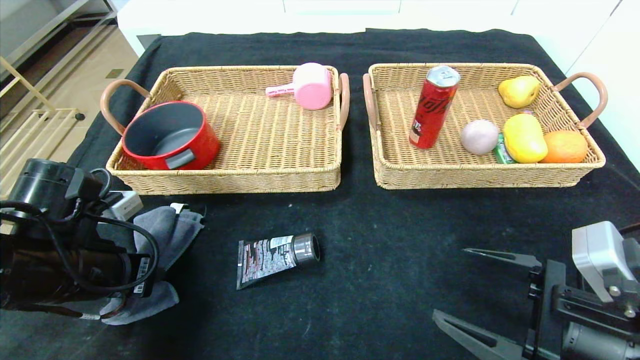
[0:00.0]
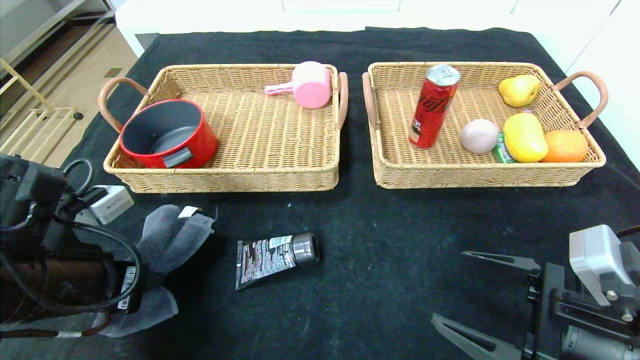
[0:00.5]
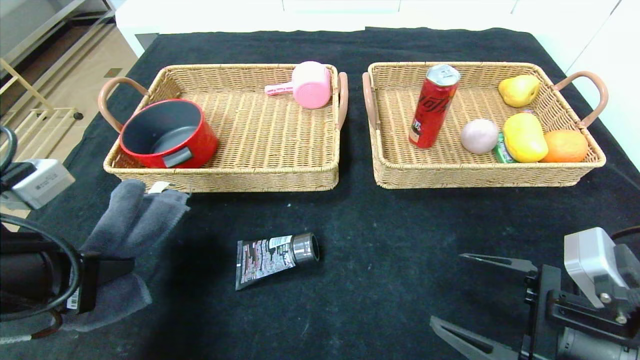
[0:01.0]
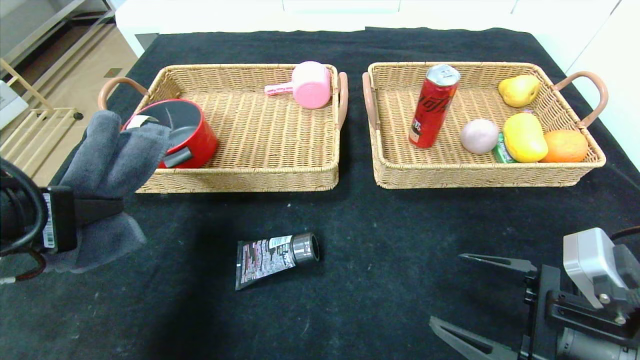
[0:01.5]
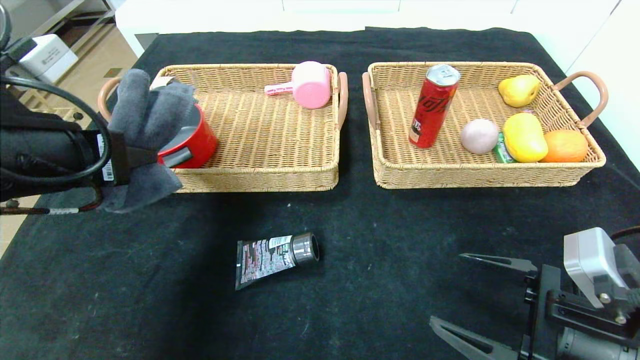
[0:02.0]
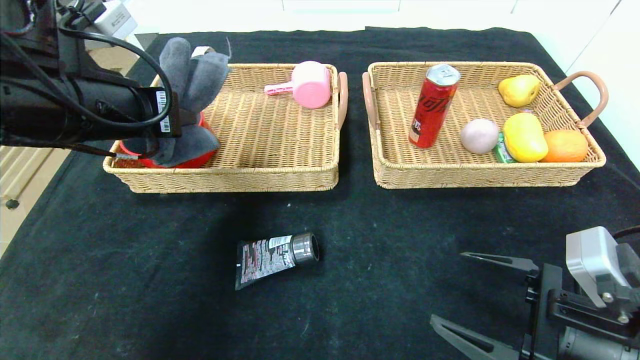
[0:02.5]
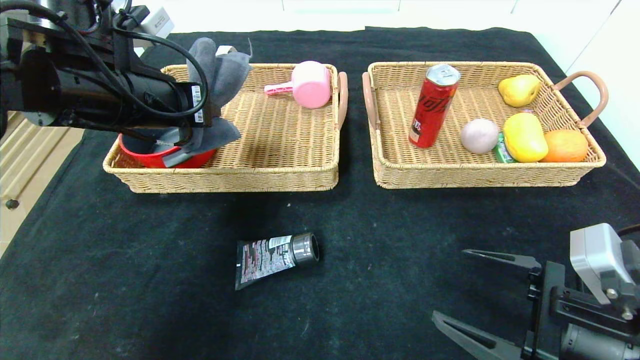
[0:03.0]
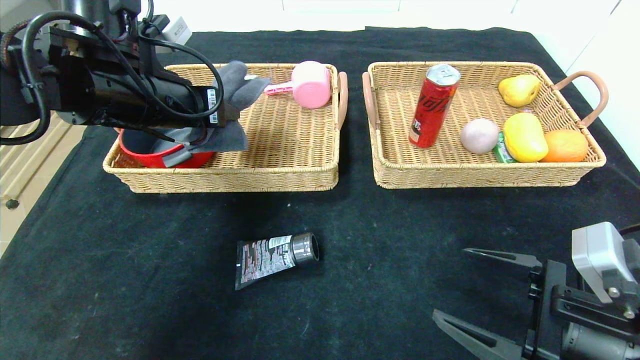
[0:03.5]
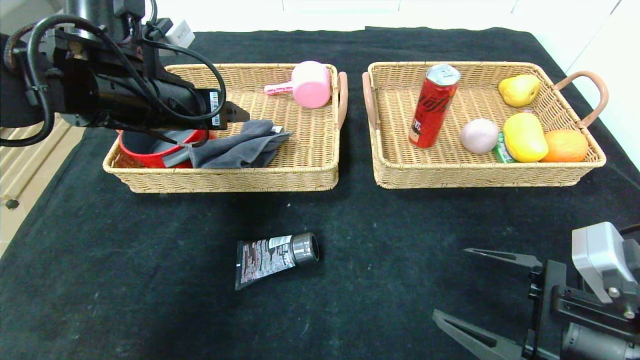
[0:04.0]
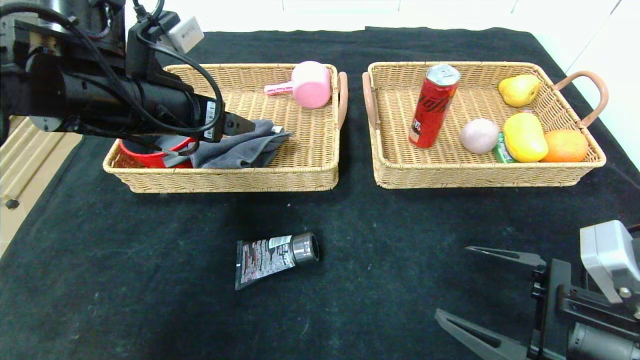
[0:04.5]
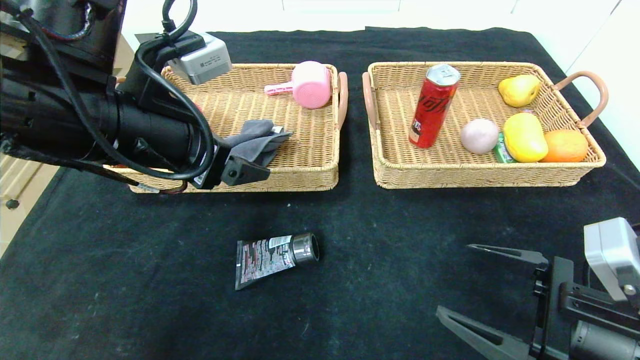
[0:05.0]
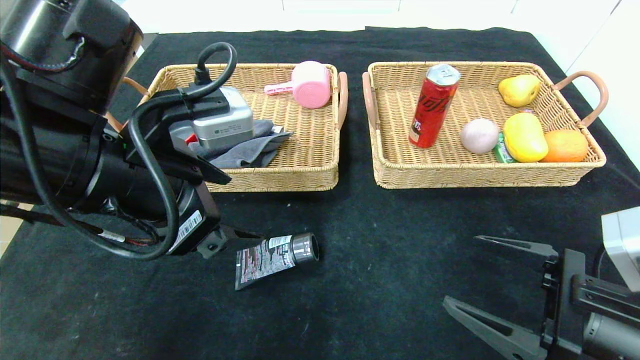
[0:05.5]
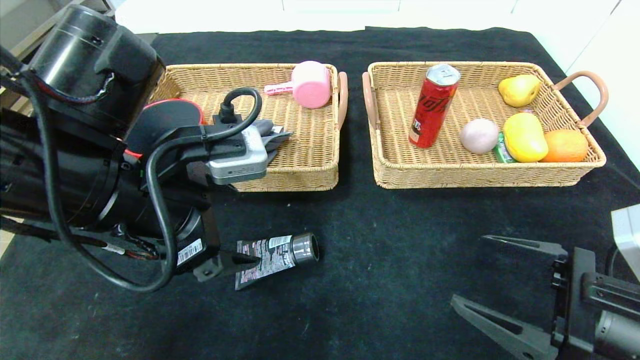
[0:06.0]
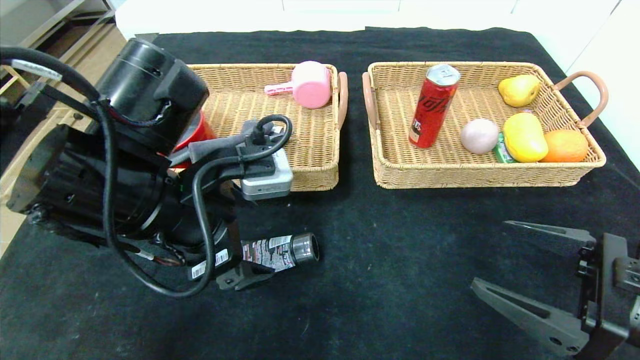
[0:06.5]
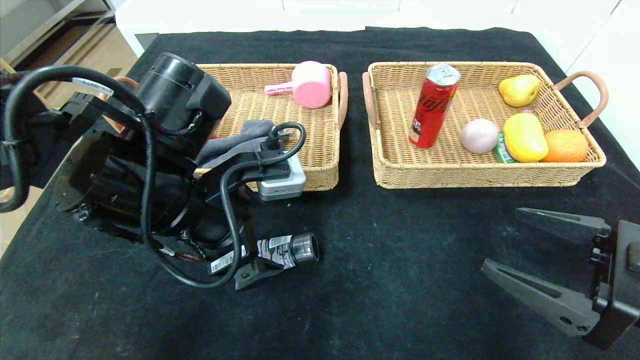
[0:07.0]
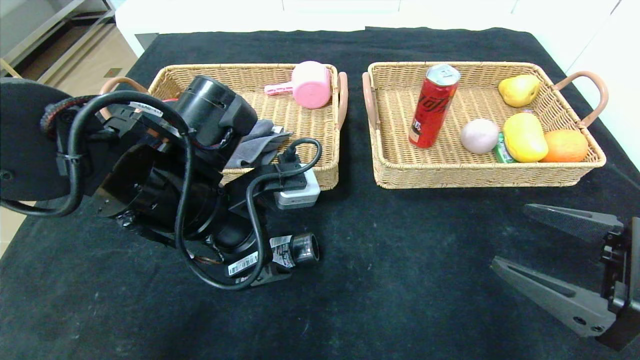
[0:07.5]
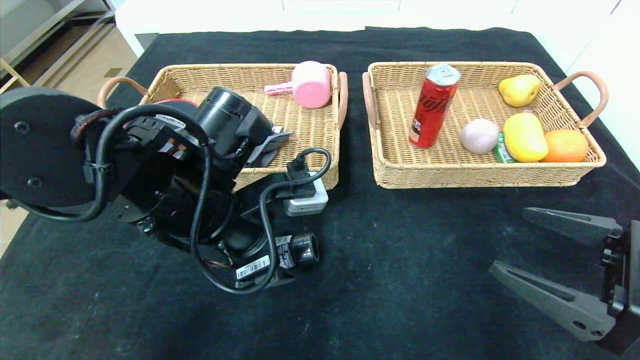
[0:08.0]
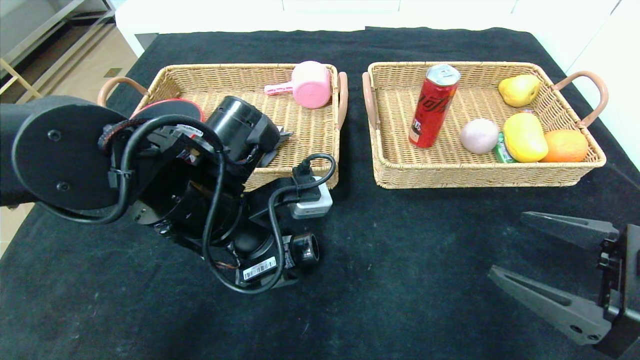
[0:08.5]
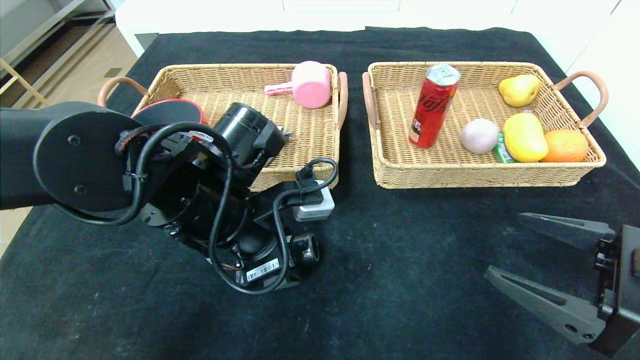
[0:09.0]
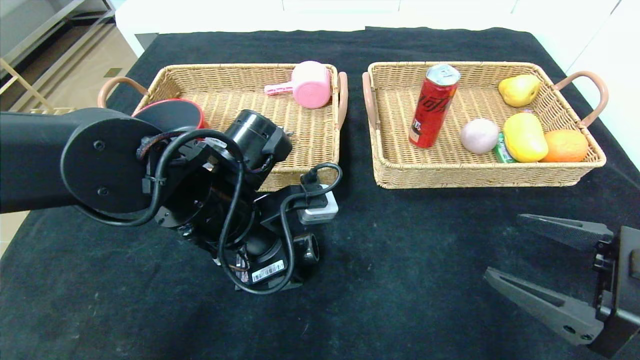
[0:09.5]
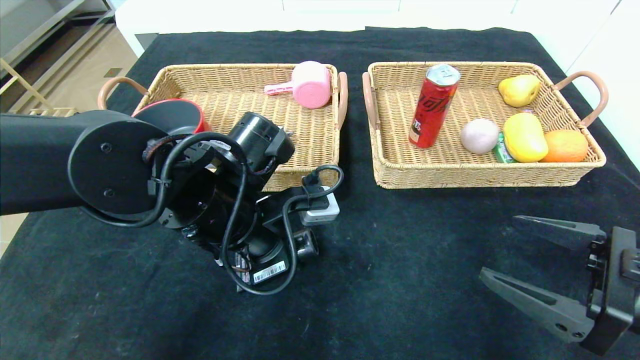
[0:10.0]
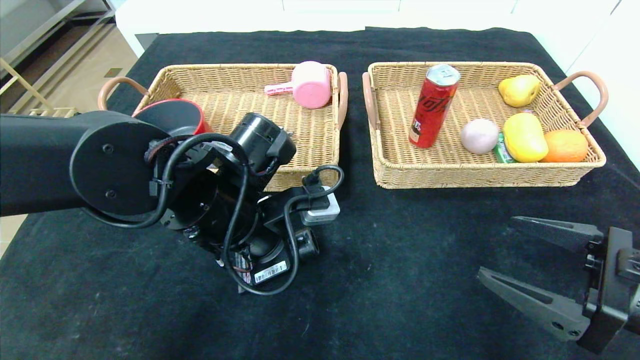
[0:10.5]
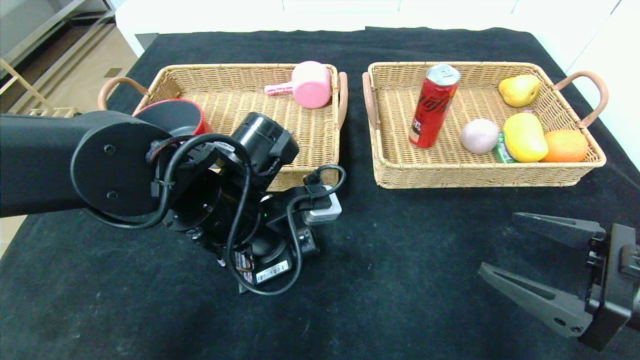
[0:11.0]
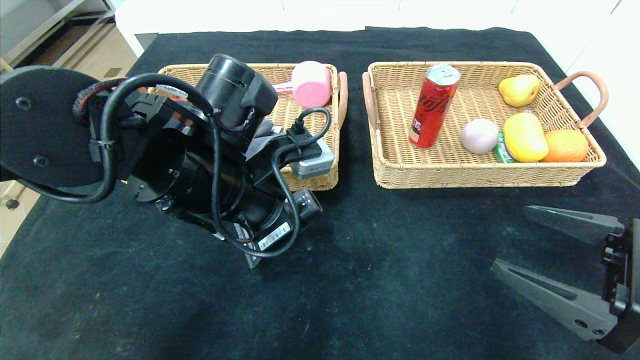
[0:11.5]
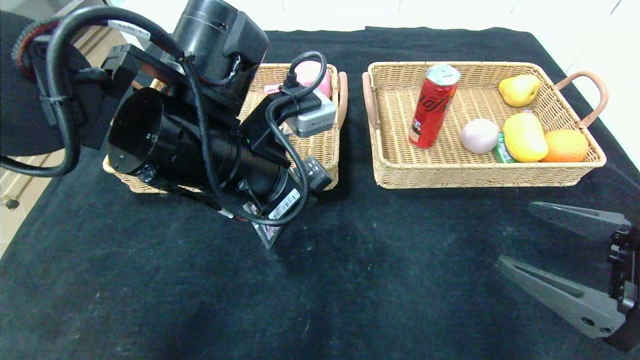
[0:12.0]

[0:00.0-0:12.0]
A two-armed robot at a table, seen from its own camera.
Step, 0:00.0 to 0:04.0: Grasp the gray towel and put it in the left basket.
0:00.0 to 0:02.0: The left gripper is displaced upward by some 15 cm.
0:02.0 to 0:04.0: The left gripper travels forward by approximately 10 cm, and opens.
0:04.0 to 0:06.0: The left gripper moves backward, about 10 cm.
0:06.0 to 0:08.0: The left gripper shifts by some 10 cm.
0:08.0 to 0:10.0: The left gripper closes.
0:10.0 to 0:12.0: The left gripper moves upward, about 10 cm.

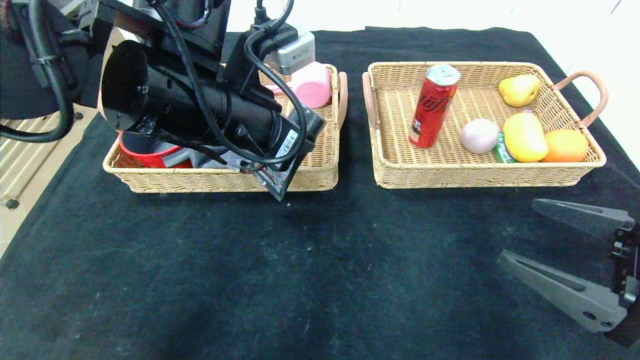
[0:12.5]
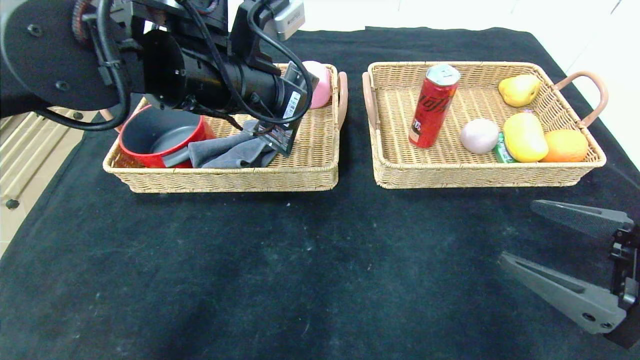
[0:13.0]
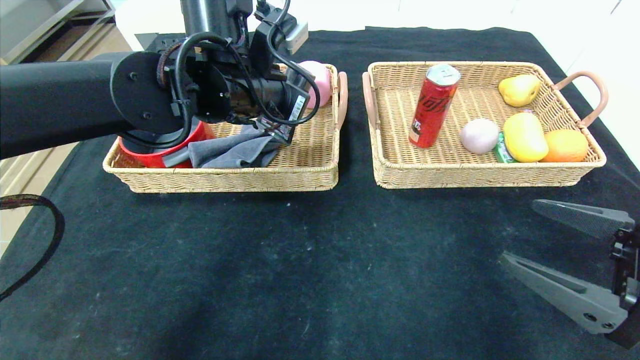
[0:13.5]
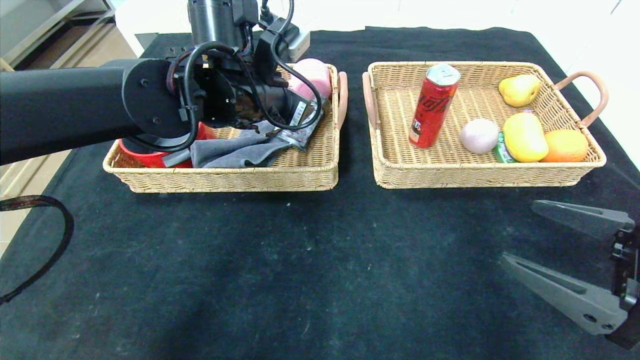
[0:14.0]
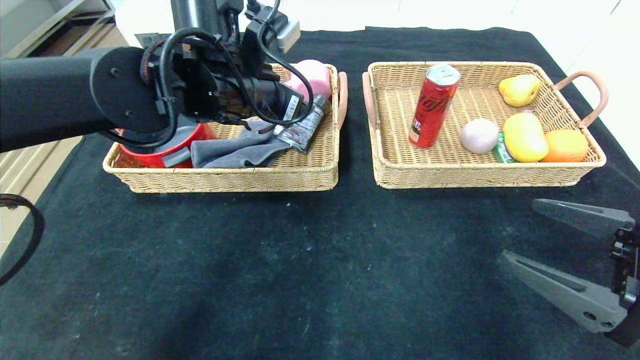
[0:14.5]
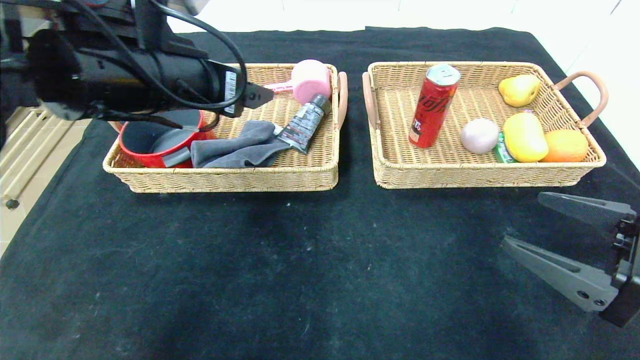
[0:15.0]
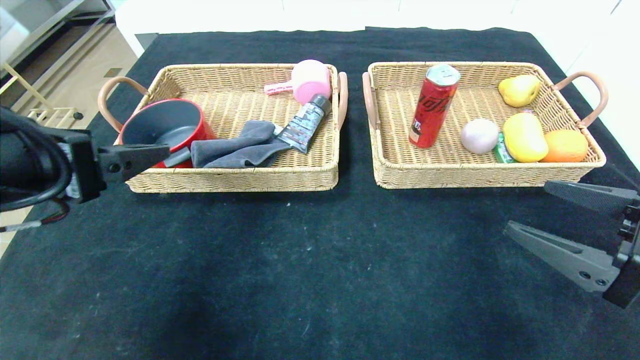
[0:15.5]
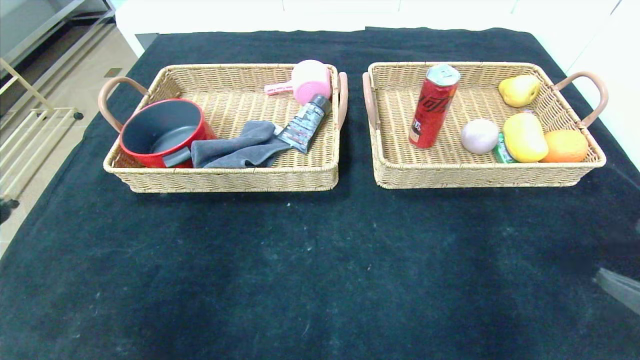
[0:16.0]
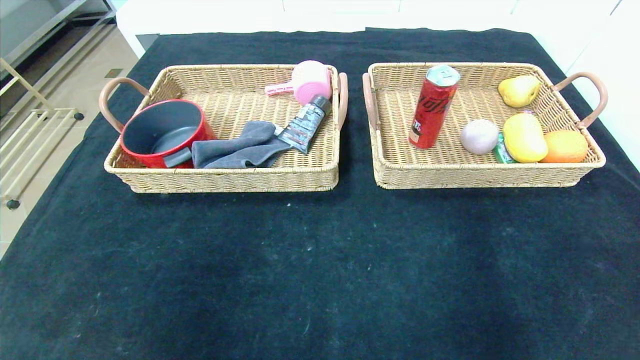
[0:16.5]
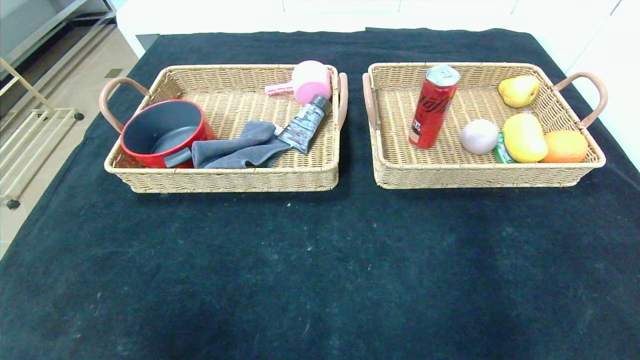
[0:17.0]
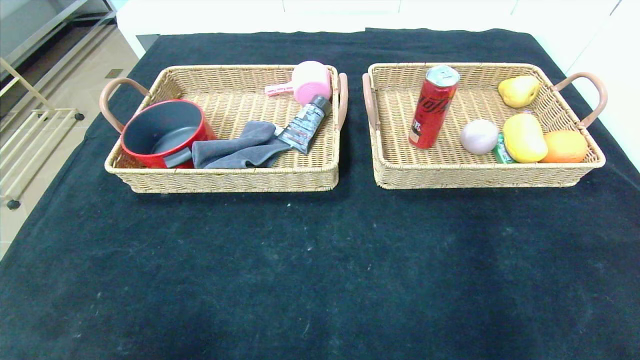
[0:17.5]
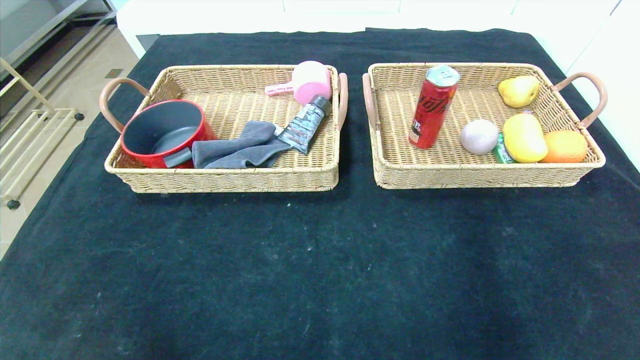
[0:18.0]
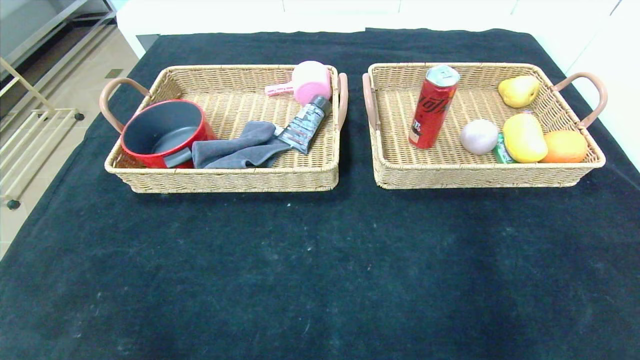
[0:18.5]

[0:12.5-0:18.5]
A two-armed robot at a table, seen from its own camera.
0:12.5 to 0:14.5: The left gripper heads forward, covering approximately 10 cm, and opens up.
0:14.5 to 0:16.5: The left gripper shifts roughly 40 cm backward and to the left. The right gripper goes about 20 cm backward and to the right.

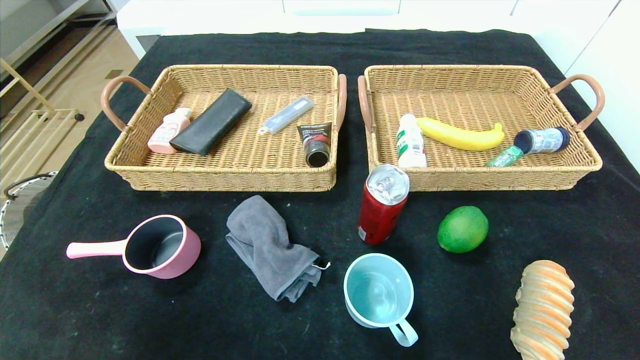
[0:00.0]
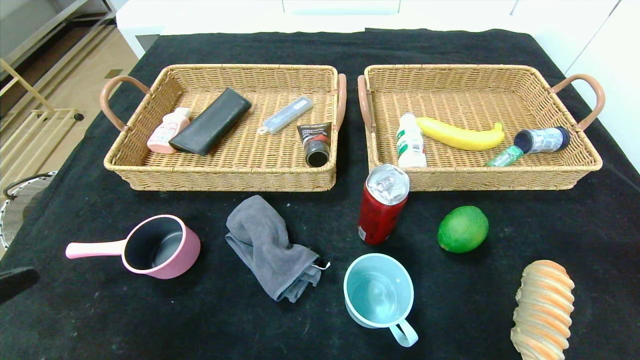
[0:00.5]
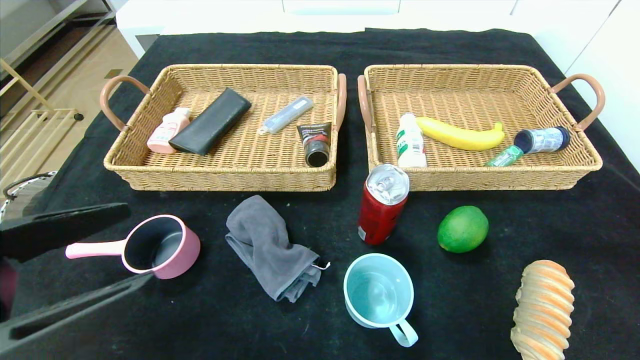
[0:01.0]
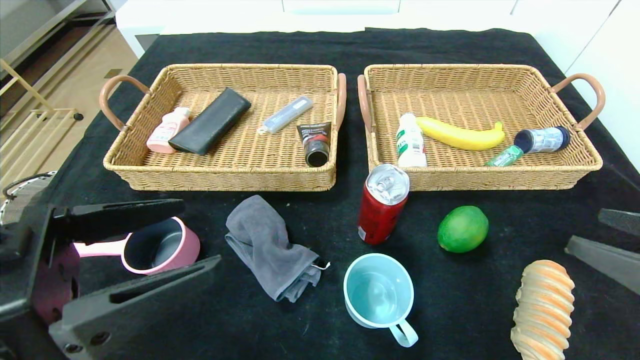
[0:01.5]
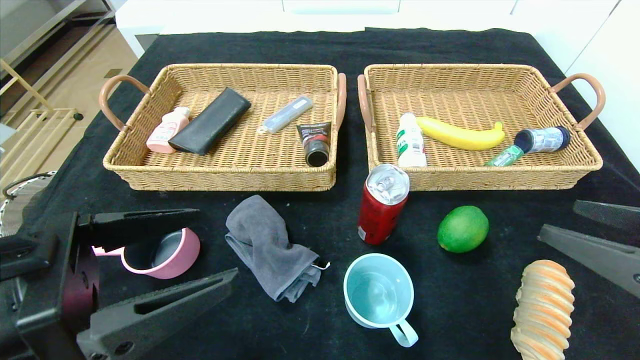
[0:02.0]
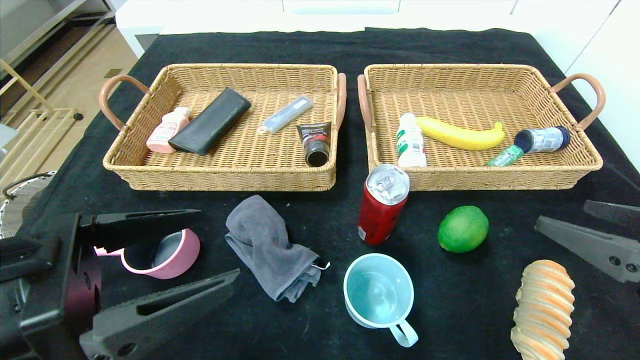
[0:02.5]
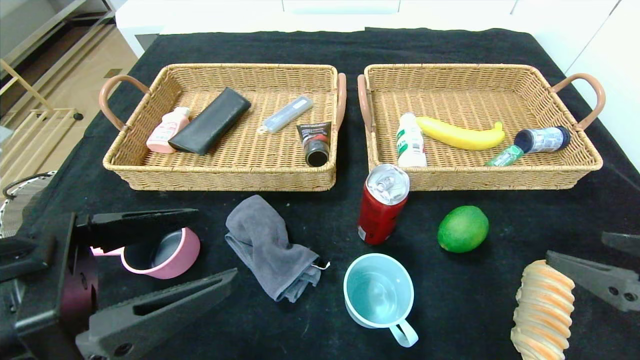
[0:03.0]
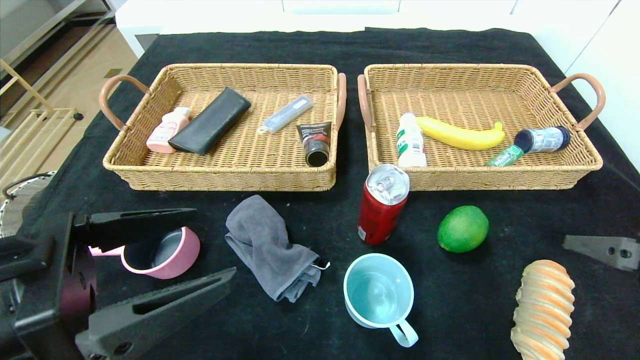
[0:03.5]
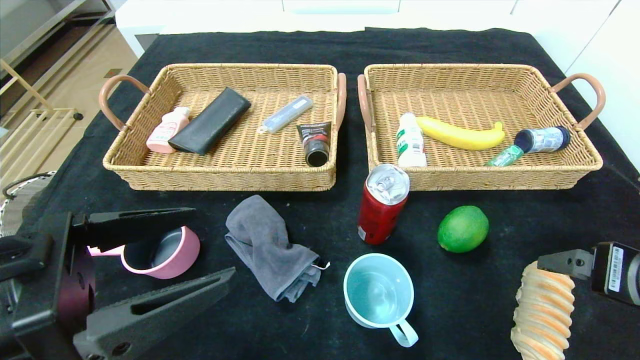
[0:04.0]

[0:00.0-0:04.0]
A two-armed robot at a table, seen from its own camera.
0:00.0 to 0:02.0: The right gripper shifts approximately 20 cm forward, upward and to the left; the left gripper is displaced forward, upward and to the right by roughly 20 cm.
